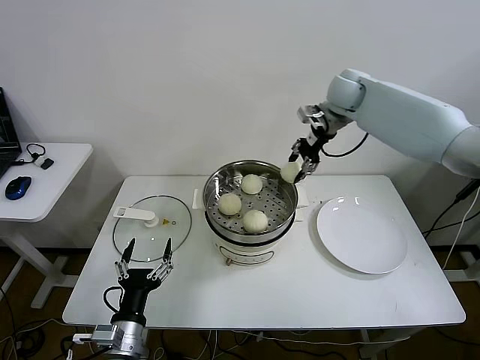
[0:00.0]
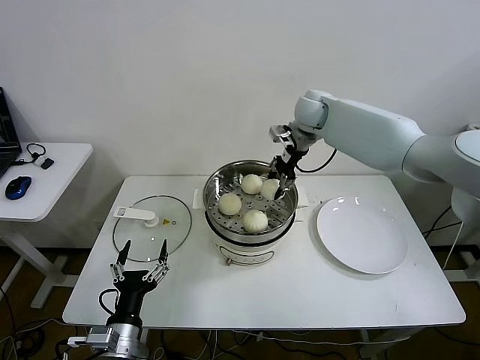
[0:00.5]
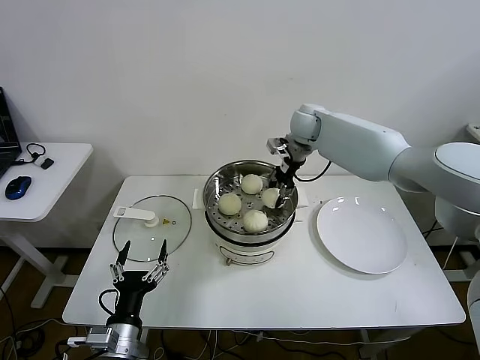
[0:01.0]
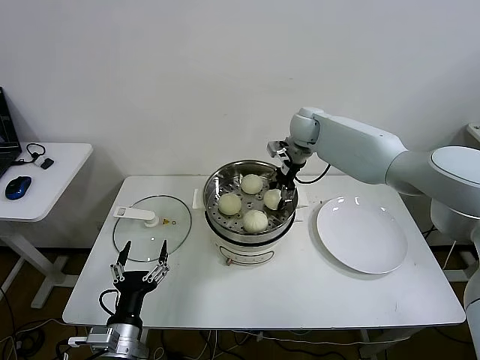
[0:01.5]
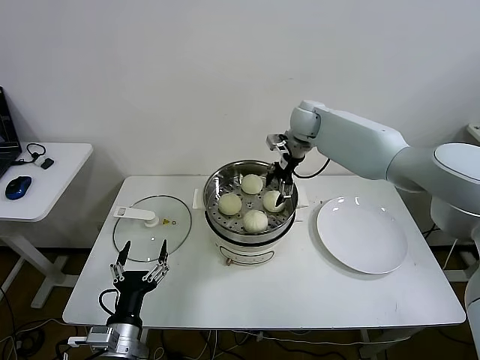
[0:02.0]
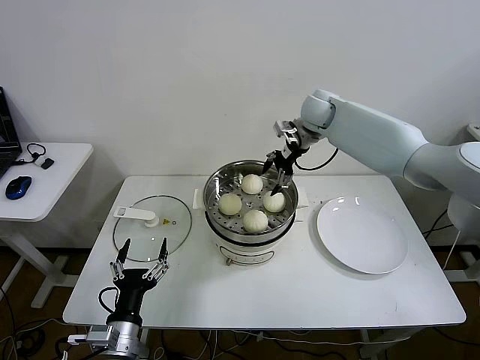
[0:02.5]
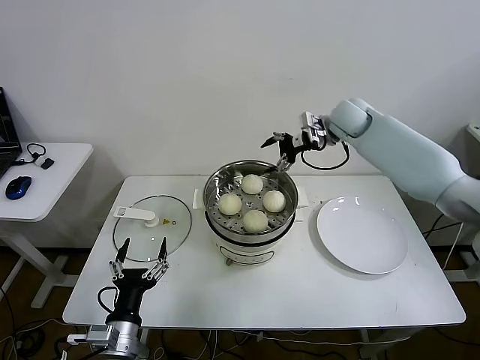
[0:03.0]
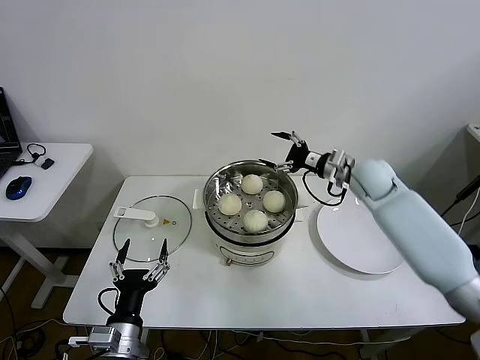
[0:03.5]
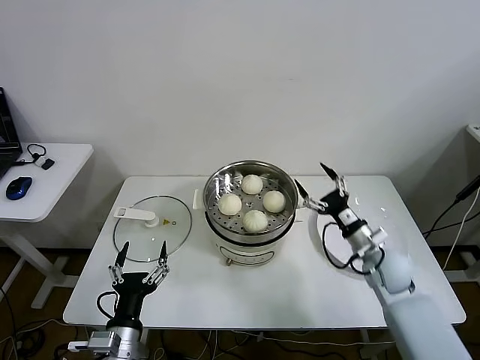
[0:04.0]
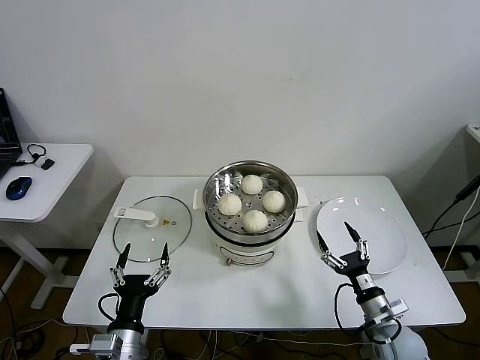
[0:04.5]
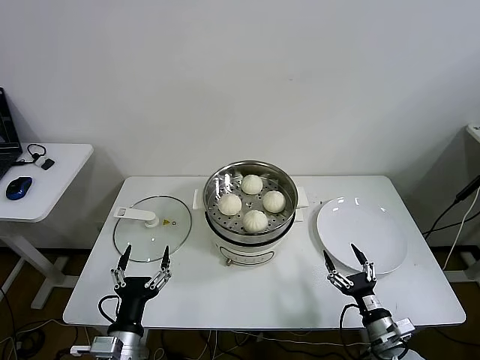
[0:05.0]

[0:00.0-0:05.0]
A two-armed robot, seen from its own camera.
0:00.0 to 0:02.5: The right gripper is displaced to the left and downward by roughly 10 cm, and opens up.
0:02.5 to 0:05.0: The right gripper shifts about 60 cm backward and downward.

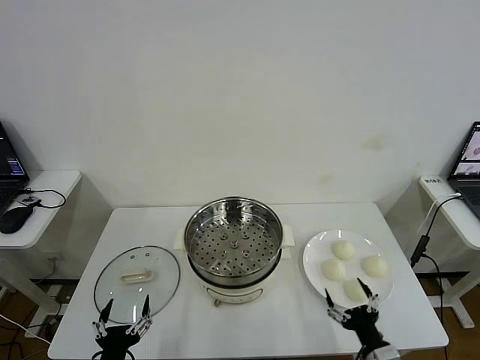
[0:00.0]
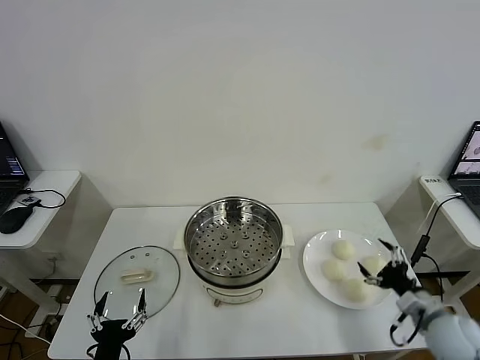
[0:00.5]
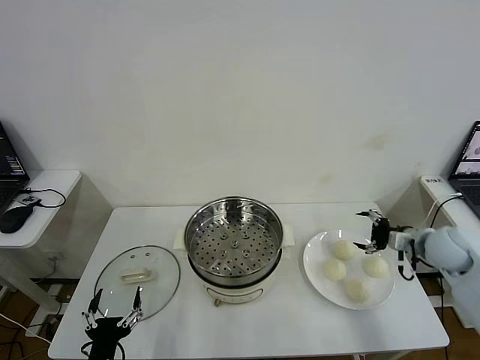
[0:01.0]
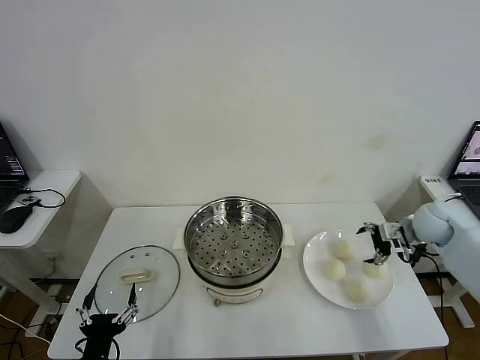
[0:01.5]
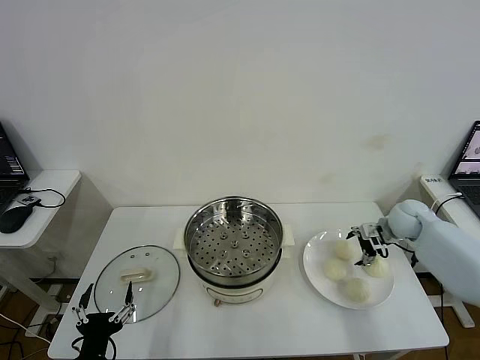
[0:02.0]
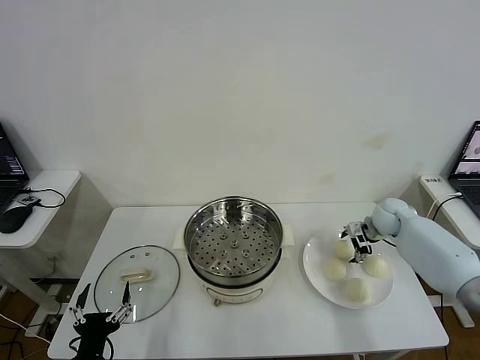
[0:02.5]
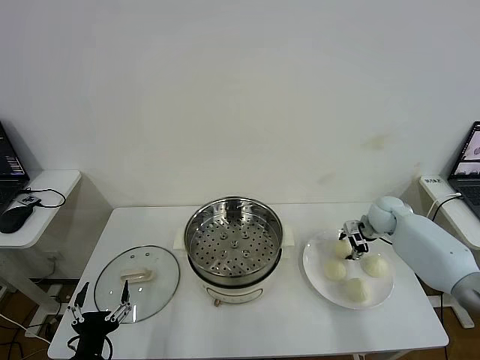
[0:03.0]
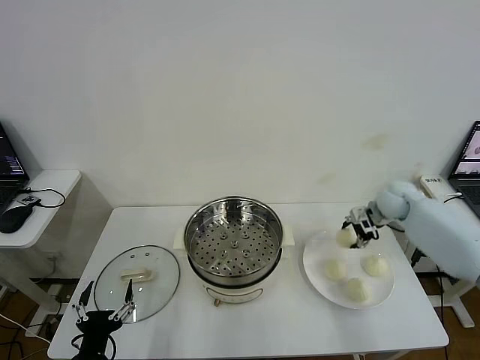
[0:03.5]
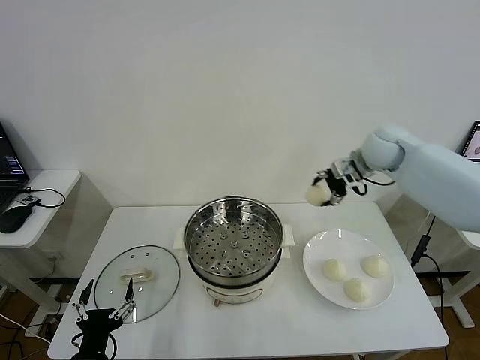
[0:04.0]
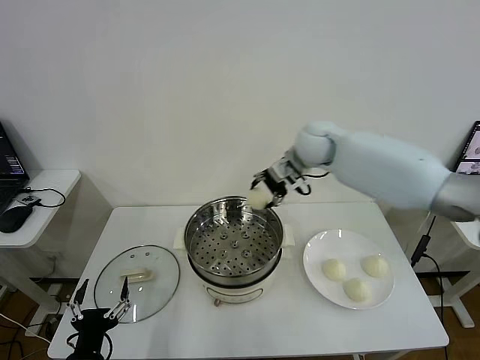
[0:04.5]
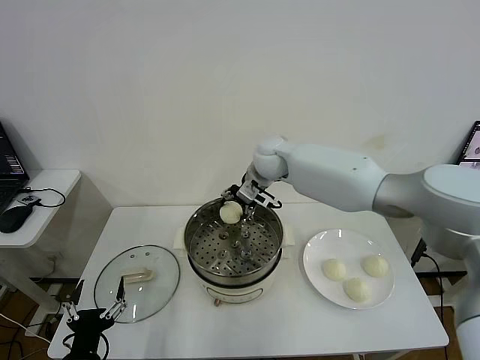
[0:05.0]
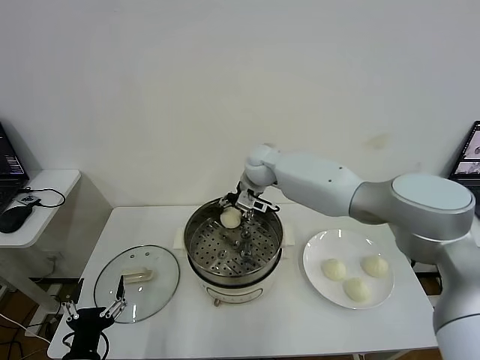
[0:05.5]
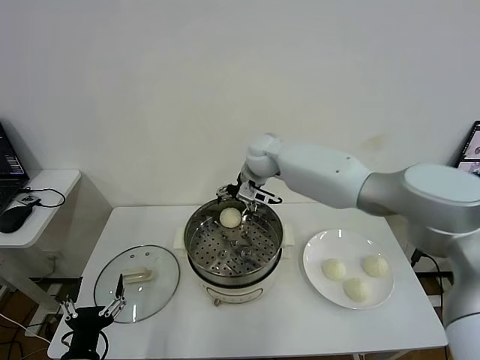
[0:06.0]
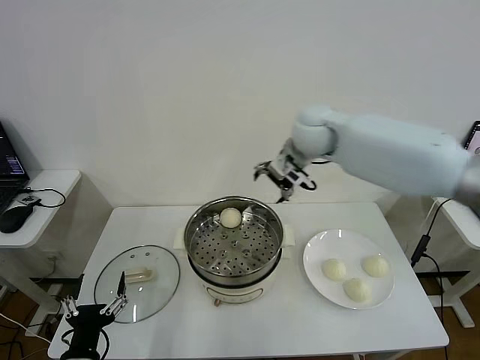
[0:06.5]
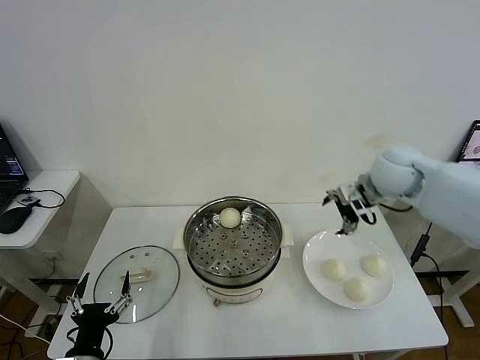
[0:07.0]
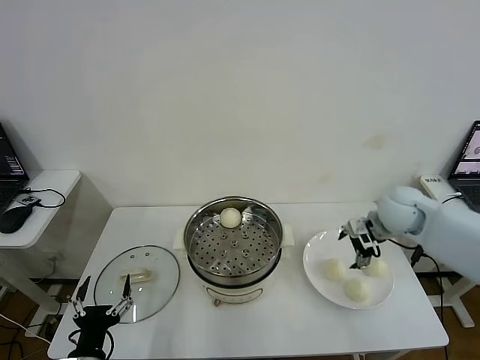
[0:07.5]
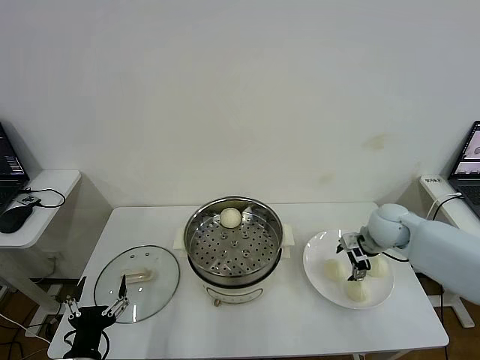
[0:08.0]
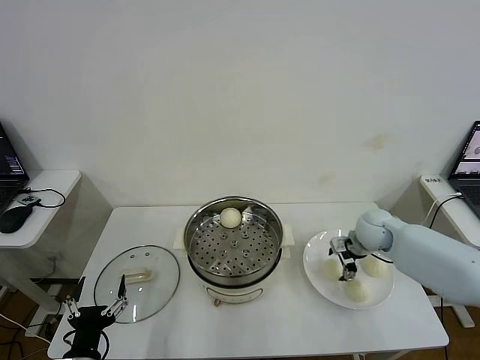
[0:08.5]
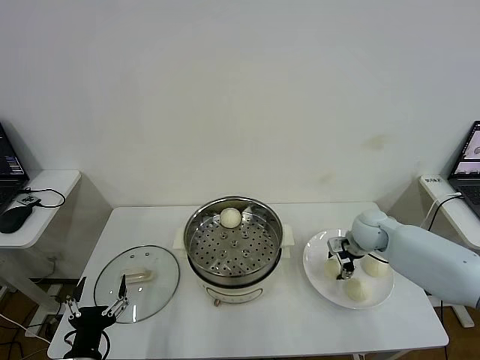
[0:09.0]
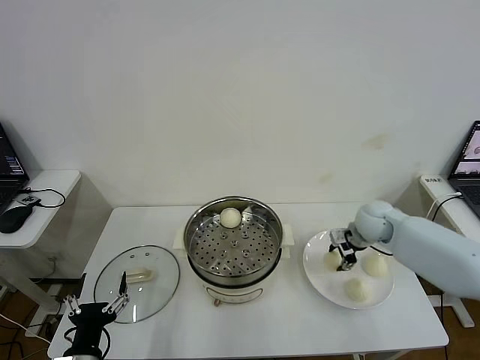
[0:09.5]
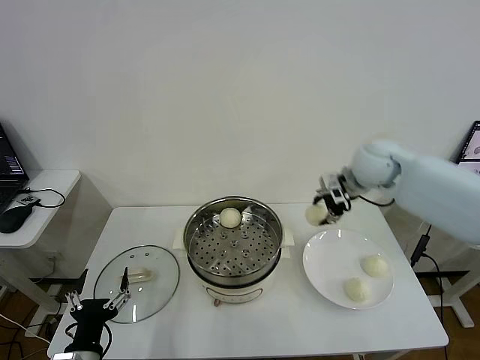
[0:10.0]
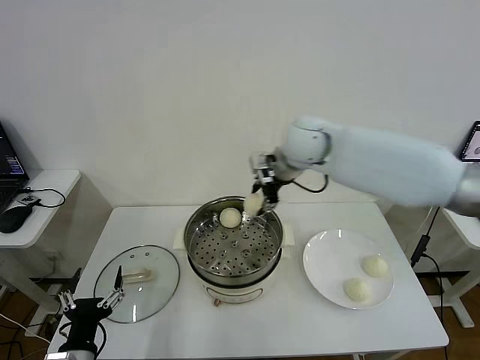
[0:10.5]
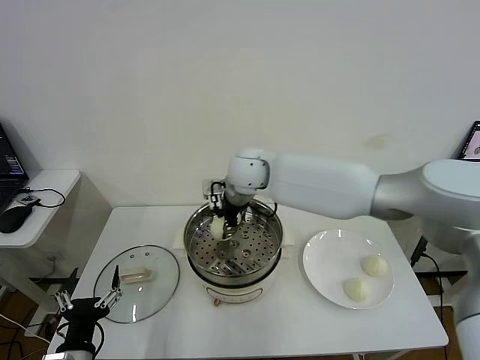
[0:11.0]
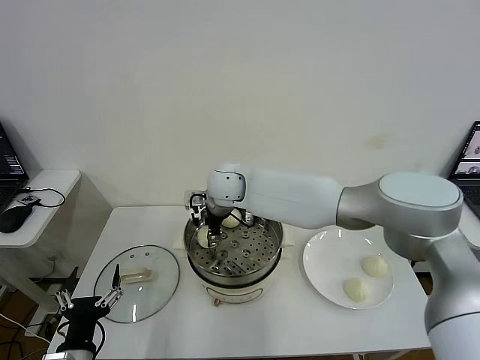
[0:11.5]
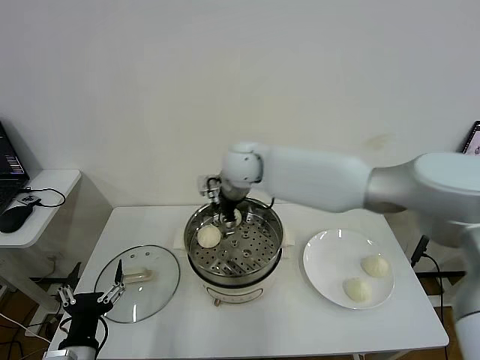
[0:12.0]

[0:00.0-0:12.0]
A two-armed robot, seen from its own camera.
Step, 0:00.0 to 0:03.0: Grasp the baozi in the plate with right gripper.
Step, 0:03.5 to 0:05.5: Place the baozi on the steamer with right gripper.
Step, 0:06.0 to 0:09.0: Grasp the baozi in the plate with right gripper.
Step, 0:09.5 to 0:11.5: Place the baozi on the steamer with right gripper.
0:02.0 to 0:04.0: The right gripper heads upward and to the left, covering about 25 cm, and closes.
0:04.0 to 0:06.0: The right gripper is displaced to the left by some 20 cm, and opens its fingers.
0:06.0 to 0:08.0: The right gripper travels to the right, downward and backward by roughly 35 cm.
0:08.0 to 0:10.0: The right gripper moves upward and to the left, approximately 20 cm, and closes.
0:10.0 to 0:12.0: The right gripper moves to the left, roughly 25 cm, and opens up.

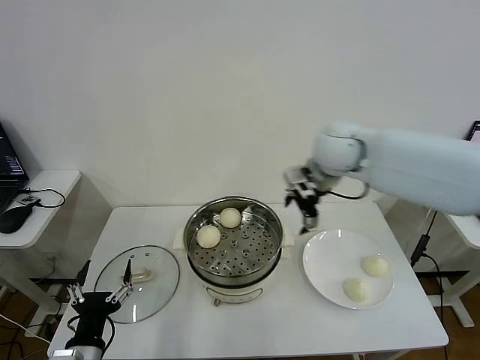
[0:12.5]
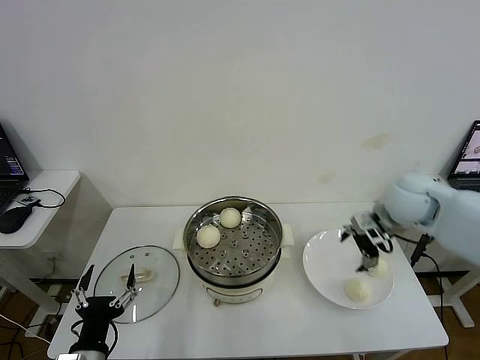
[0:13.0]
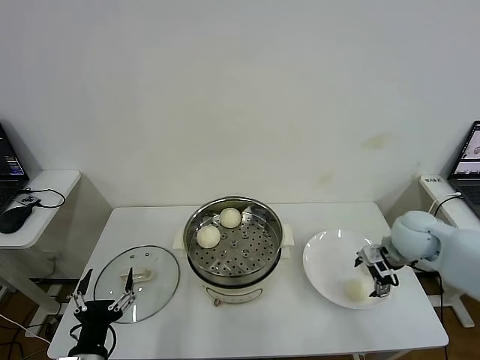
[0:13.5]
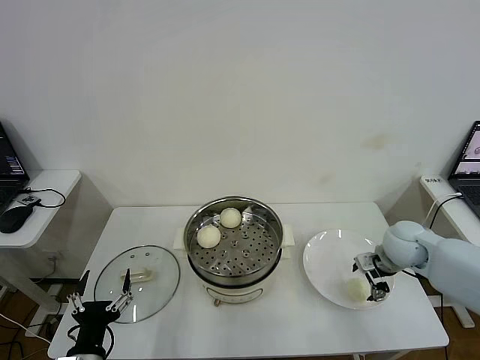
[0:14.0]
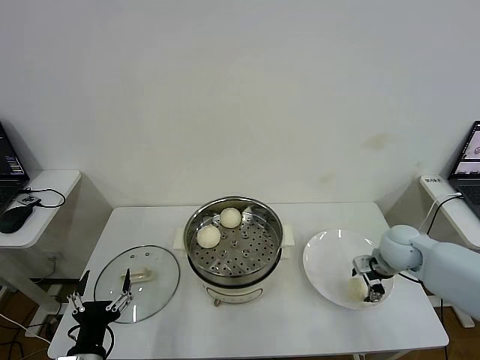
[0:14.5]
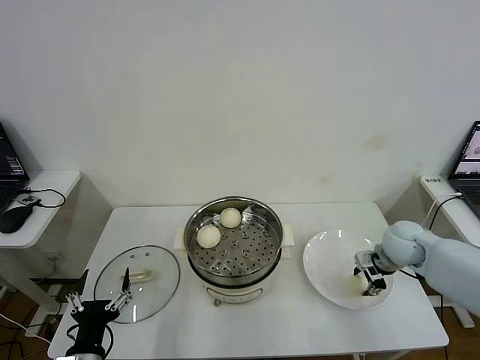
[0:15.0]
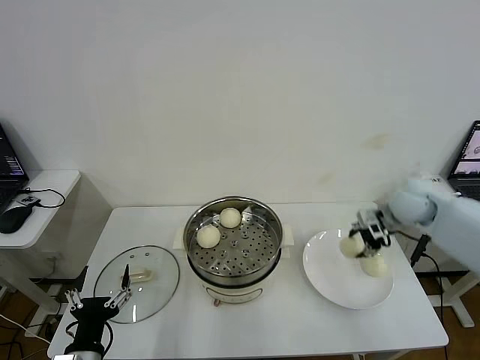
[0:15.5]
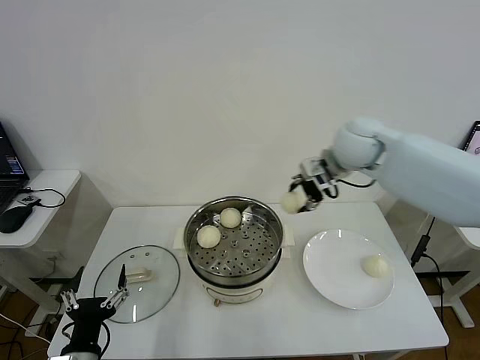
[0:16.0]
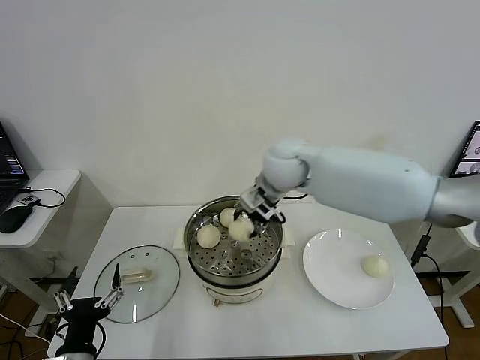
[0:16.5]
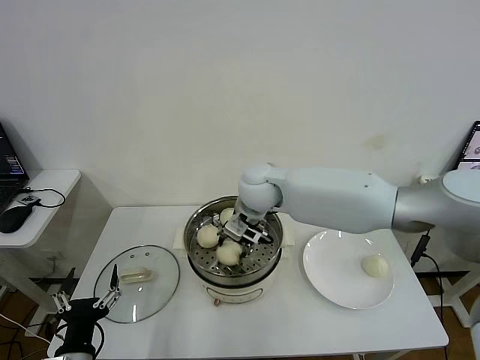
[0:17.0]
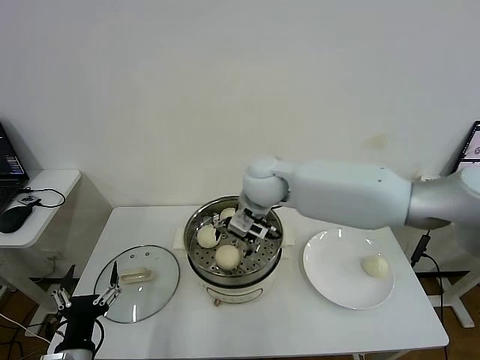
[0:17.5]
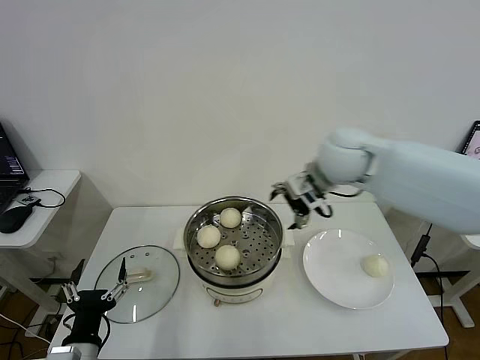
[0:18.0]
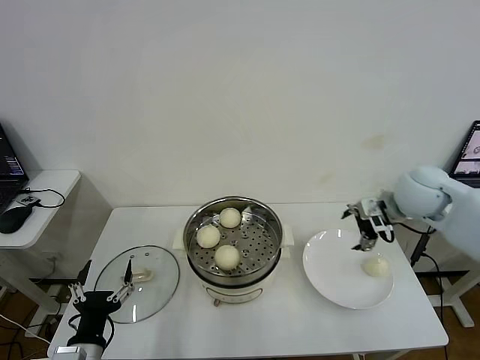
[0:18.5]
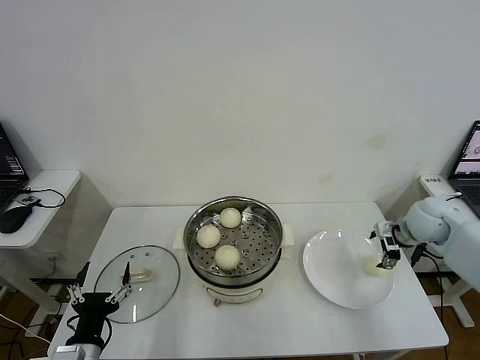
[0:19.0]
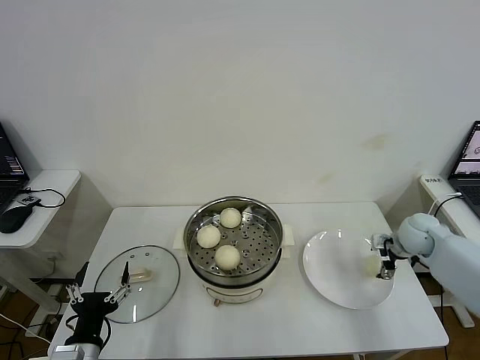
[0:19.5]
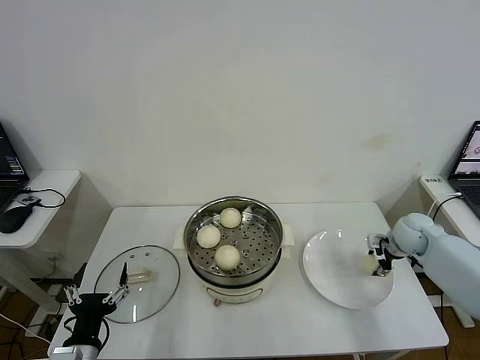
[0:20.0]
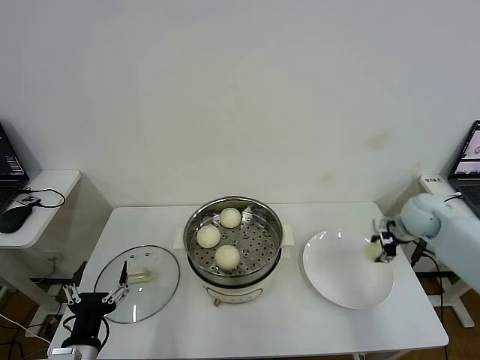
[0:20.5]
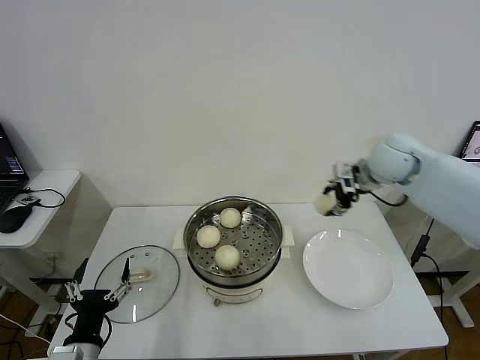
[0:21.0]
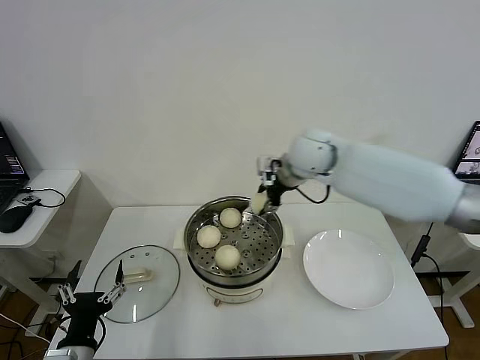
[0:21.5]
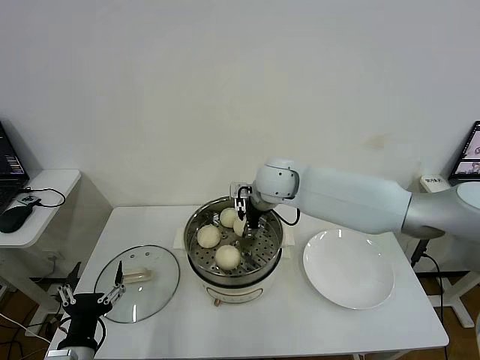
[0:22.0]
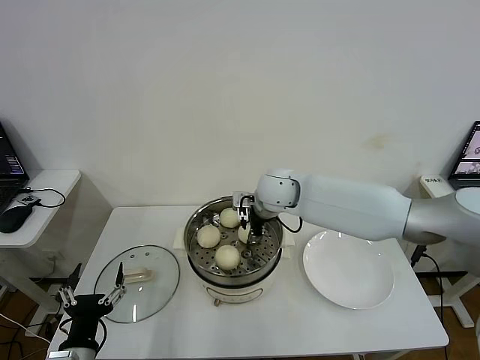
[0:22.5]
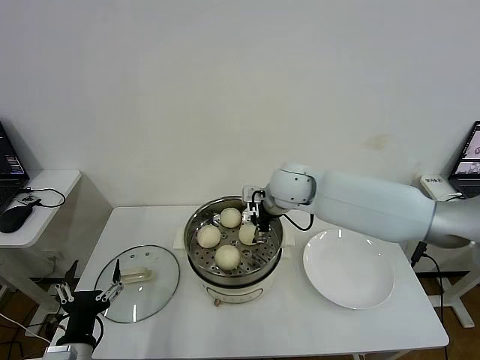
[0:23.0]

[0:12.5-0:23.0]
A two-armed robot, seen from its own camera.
Step, 0:12.5 to 0:14.5: Grasp the baozi in the plate with right gripper.
Step, 0:15.5 to 0:17.5: Place the baozi on the steamer with right gripper.
Step, 0:18.0 to 0:20.0: Grasp the baozi in the plate with right gripper.
Step, 0:20.5 to 0:22.5: Place the baozi on the steamer with right gripper.
0:12.5 to 0:14.5: The right gripper shifts approximately 25 cm downward and to the right, and closes.
0:14.5 to 0:16.5: The right gripper goes approximately 35 cm to the left and upward, and closes its fingers.
0:16.5 to 0:19.0: The right gripper heads to the right, covering roughly 35 cm, and opens up.
0:19.0 to 0:21.0: The right gripper heads upward and to the left, covering some 20 cm, and closes up.
0:21.0 to 0:23.0: The right gripper goes about 20 cm to the left, and opens its fingers.
